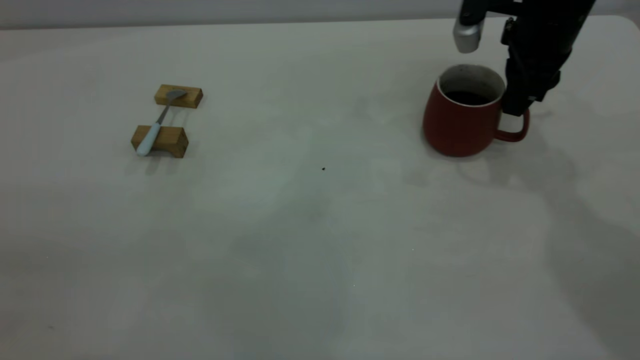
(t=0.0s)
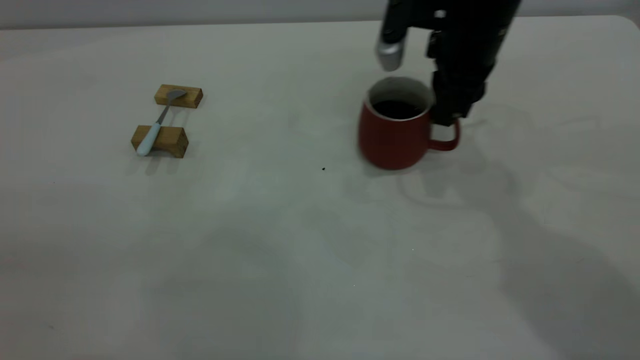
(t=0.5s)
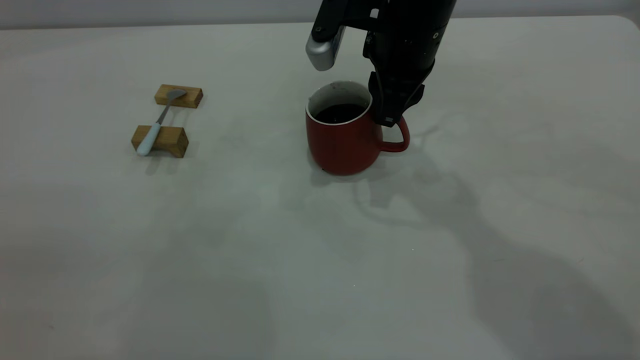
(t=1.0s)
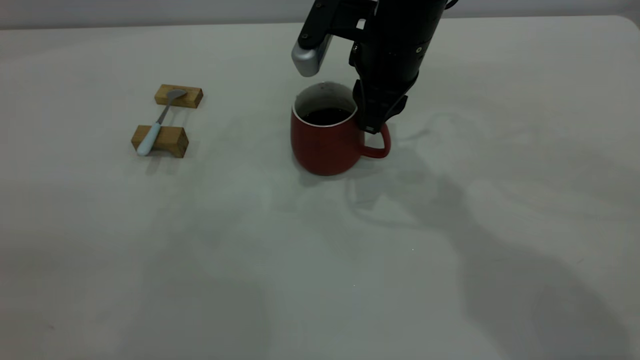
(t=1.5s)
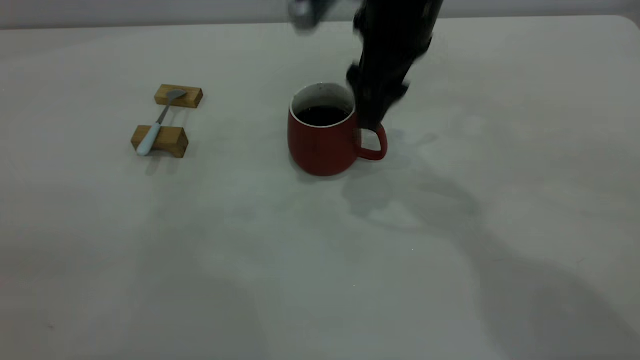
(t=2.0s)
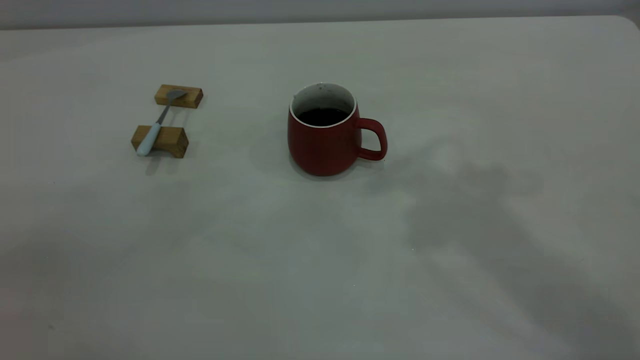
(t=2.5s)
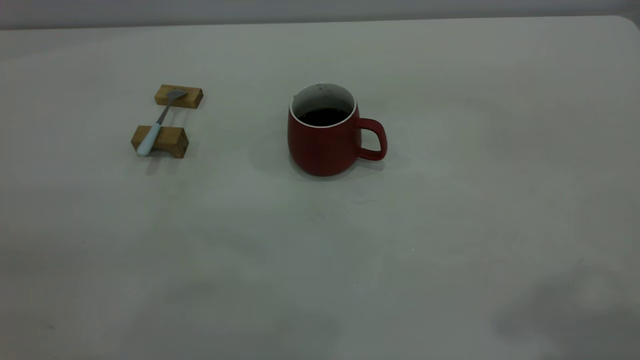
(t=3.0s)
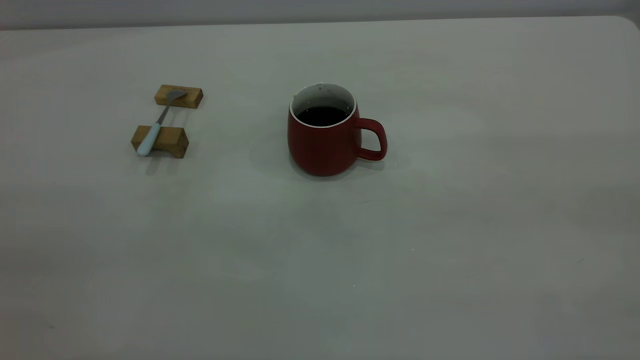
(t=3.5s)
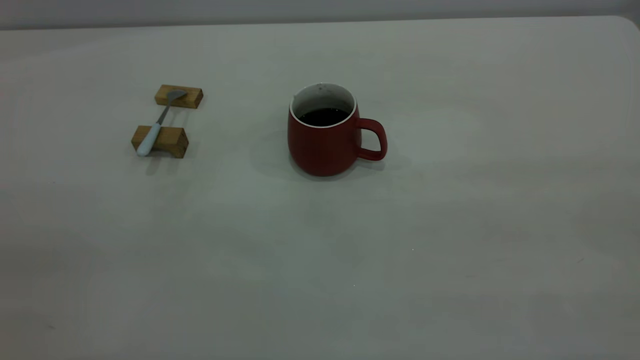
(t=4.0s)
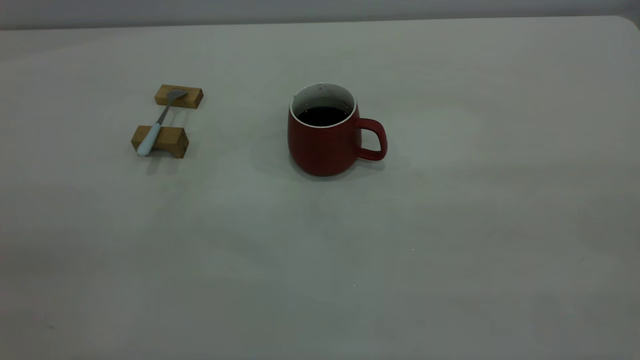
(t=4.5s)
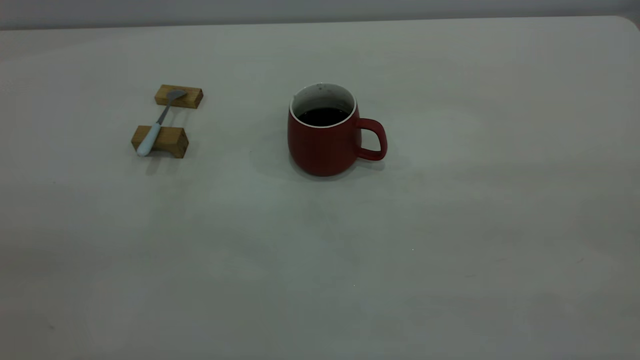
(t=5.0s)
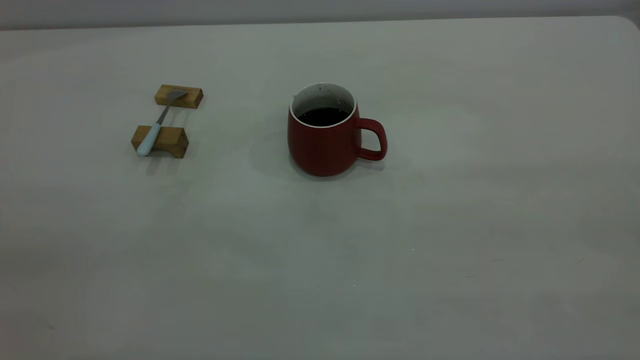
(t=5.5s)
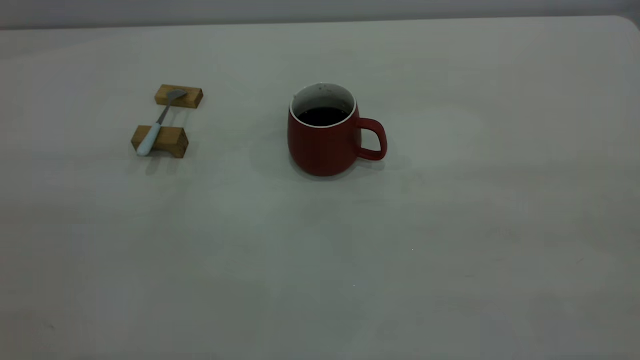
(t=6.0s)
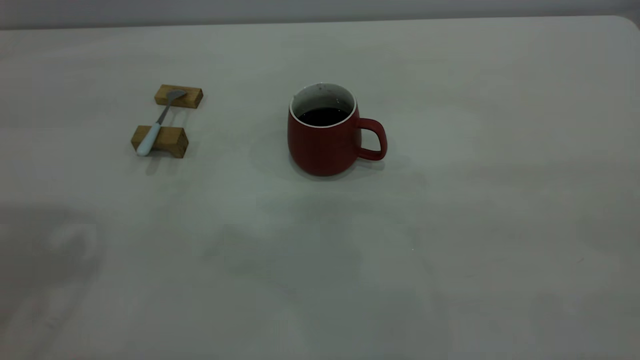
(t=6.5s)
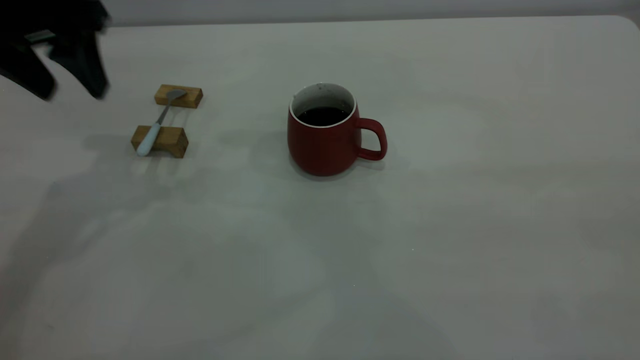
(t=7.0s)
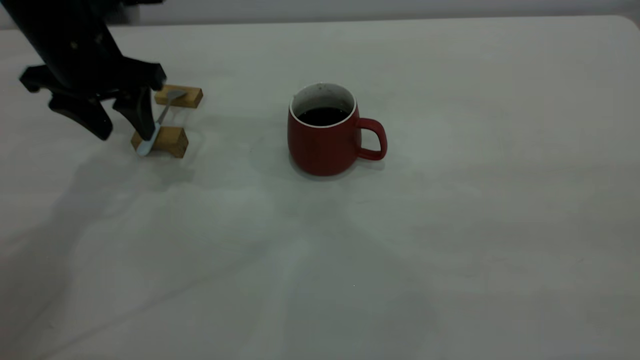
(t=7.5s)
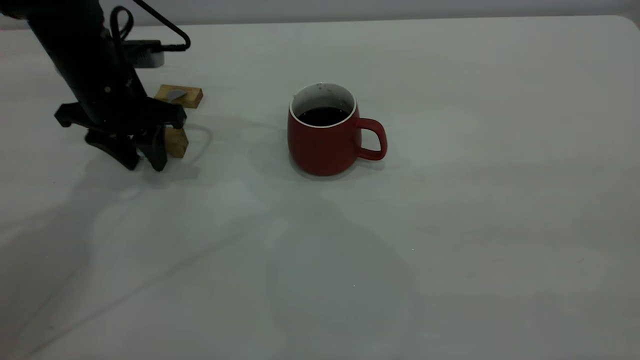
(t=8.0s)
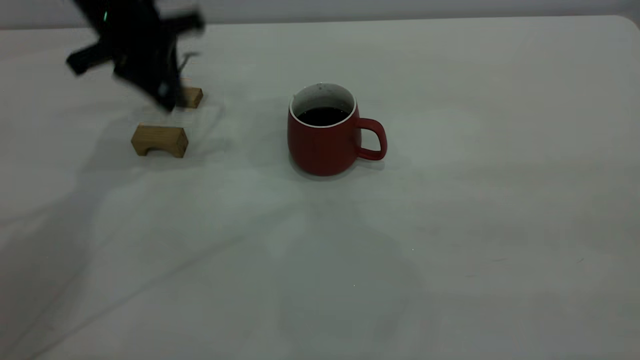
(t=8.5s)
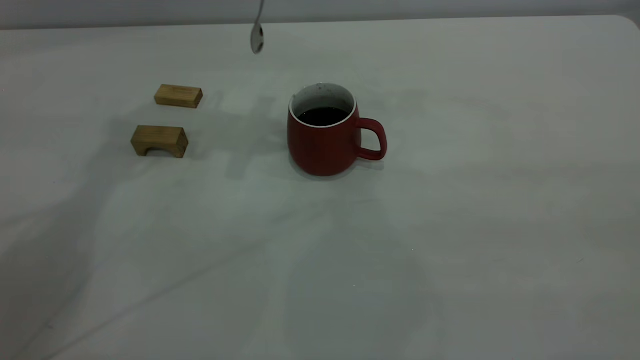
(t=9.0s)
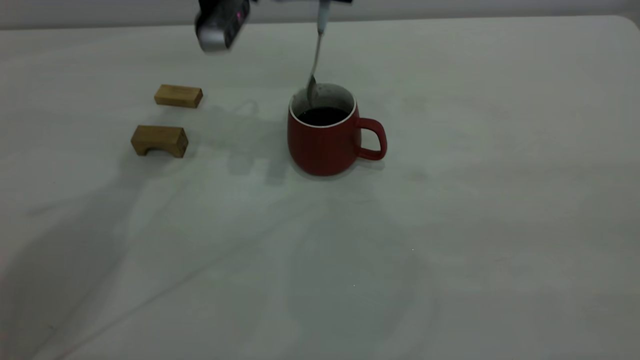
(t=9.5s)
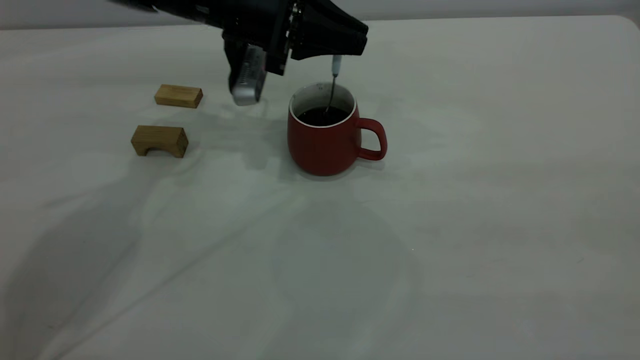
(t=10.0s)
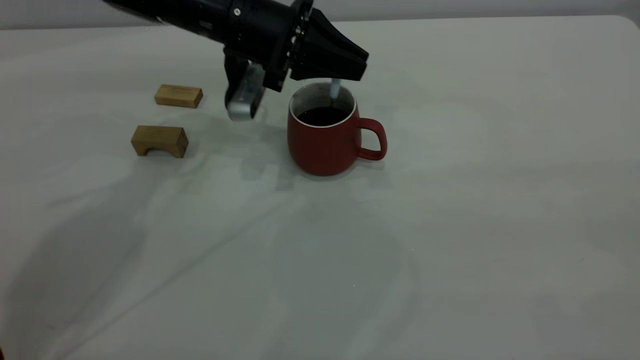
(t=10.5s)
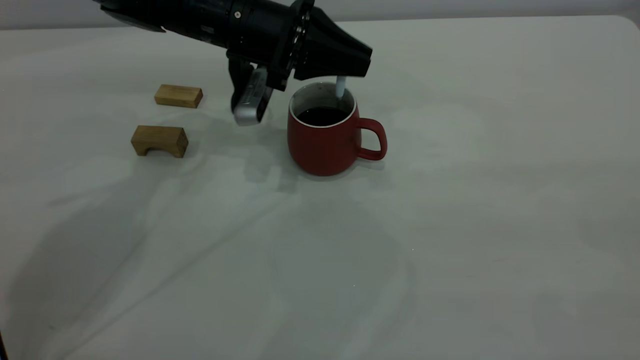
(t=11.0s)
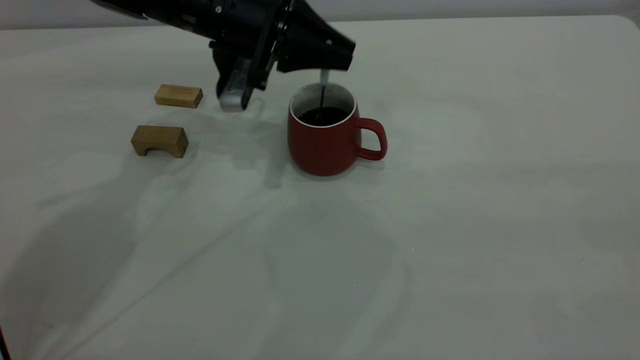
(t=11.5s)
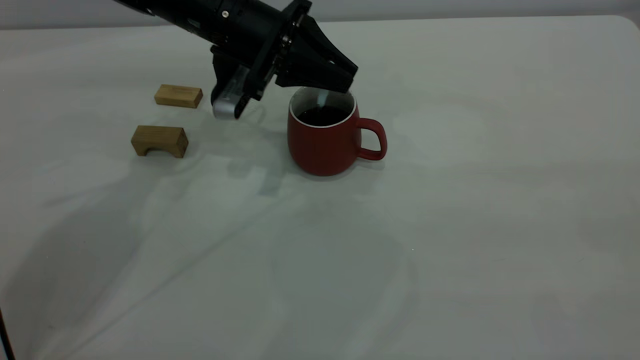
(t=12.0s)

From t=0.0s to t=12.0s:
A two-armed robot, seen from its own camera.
Step, from t=0.0s to t=2.0s: Move the cup with coffee to the center of view.
Step, from t=2.5s to t=8.5s: Pick up the spoon.
From t=0.0s to t=2.0s: The right gripper is displaced to the left and upward by approximately 15 cm, and opens up.
From t=2.0s to t=4.0s: The right gripper heads backward and to the right, covering some 40 cm.
From t=6.0s to t=8.0s: The left gripper heads forward and downward, covering approximately 50 cm, and closes up.
From t=8.0s to t=10.0s: The left gripper is displaced to the right by some 15 cm, and reaches roughly 15 cm upward, then returns.
From t=10.0s to t=12.0s: The grippers stay close to where they were, moving slightly.

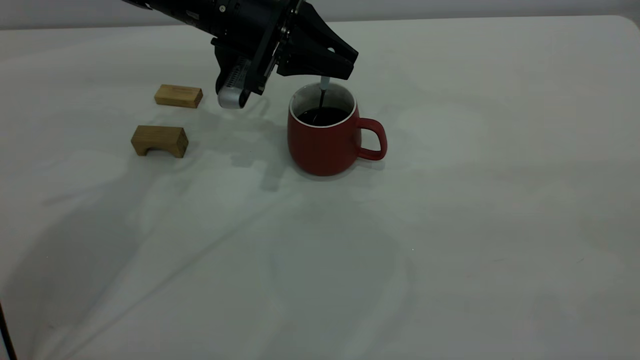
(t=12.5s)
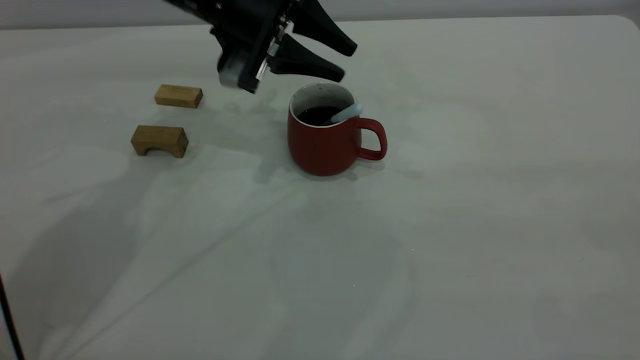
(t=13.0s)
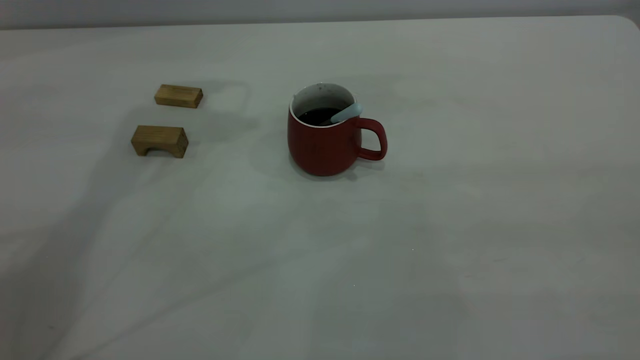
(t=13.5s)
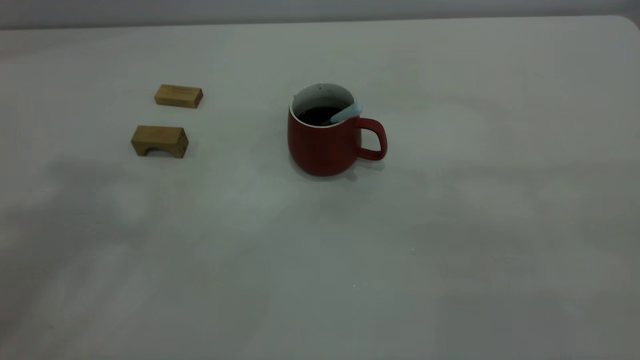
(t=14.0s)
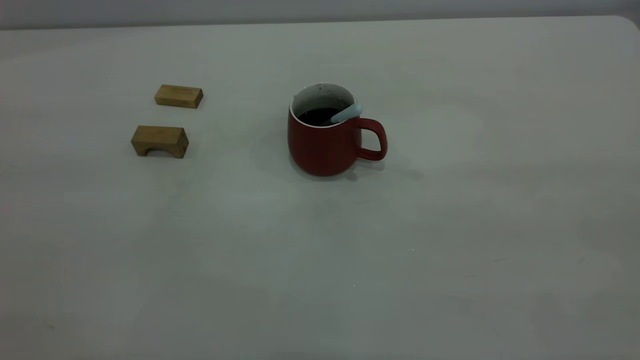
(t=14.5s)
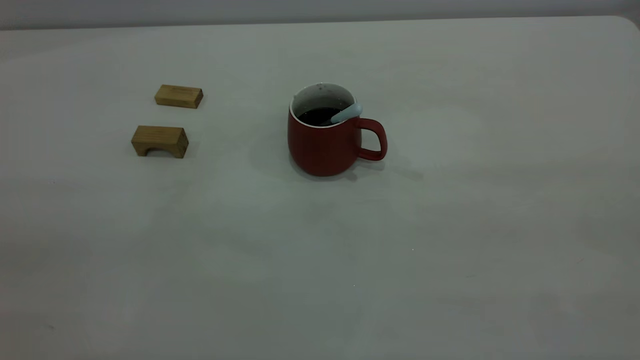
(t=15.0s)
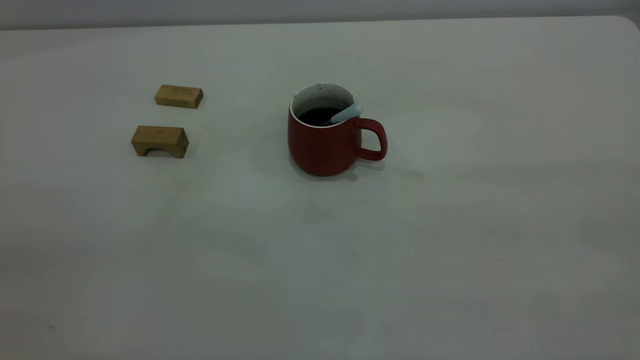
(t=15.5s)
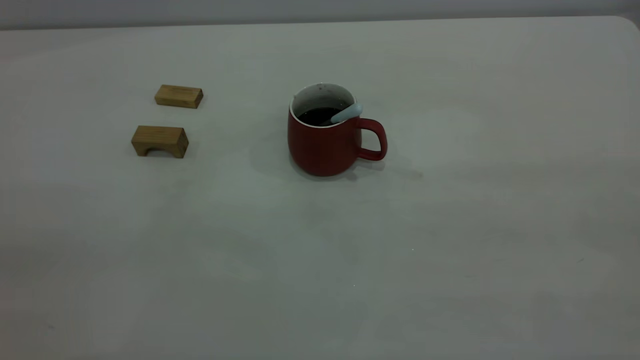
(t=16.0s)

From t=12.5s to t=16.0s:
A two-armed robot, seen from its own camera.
From t=12.5s to t=14.5s: The left gripper is displaced backward, upward and to the left by about 50 cm, and opens.

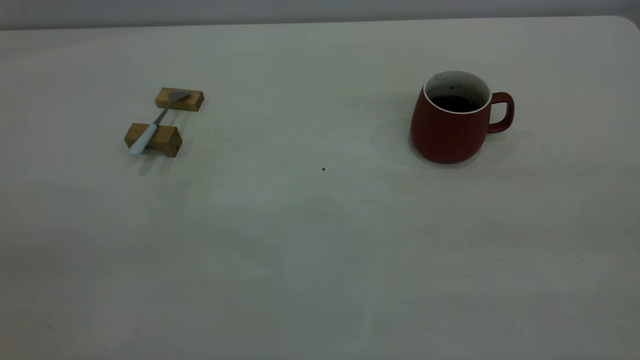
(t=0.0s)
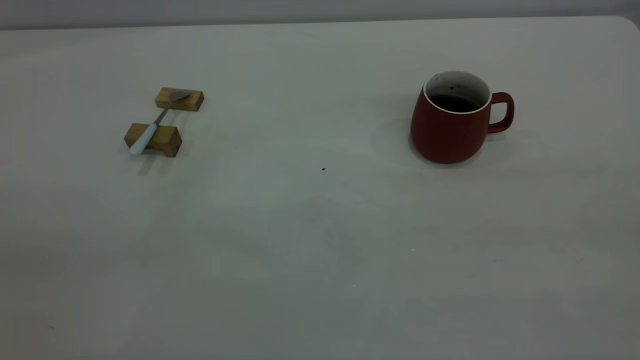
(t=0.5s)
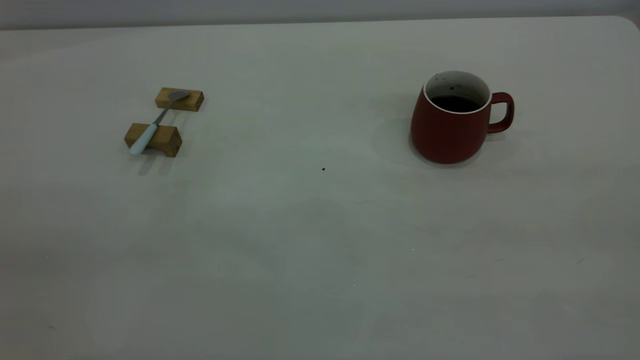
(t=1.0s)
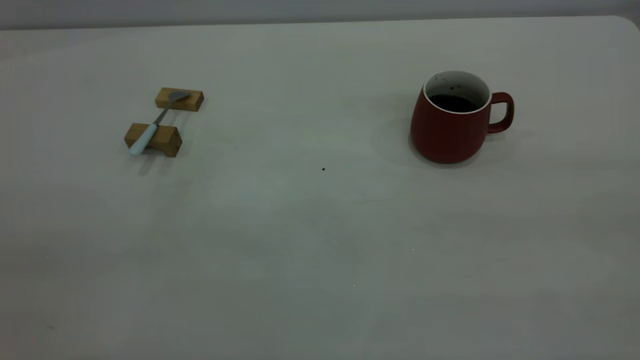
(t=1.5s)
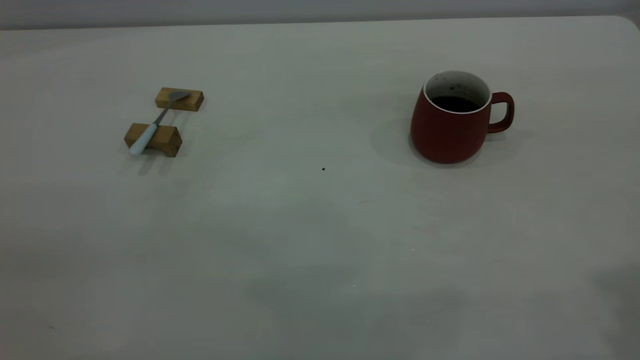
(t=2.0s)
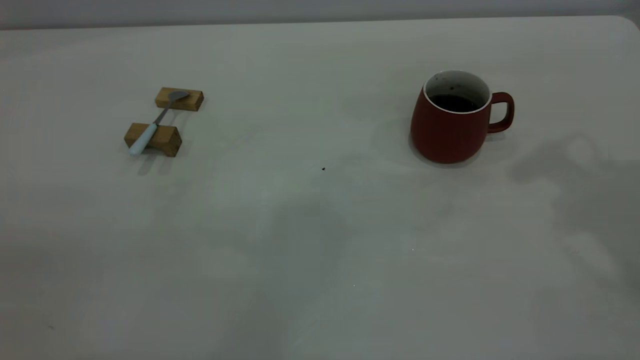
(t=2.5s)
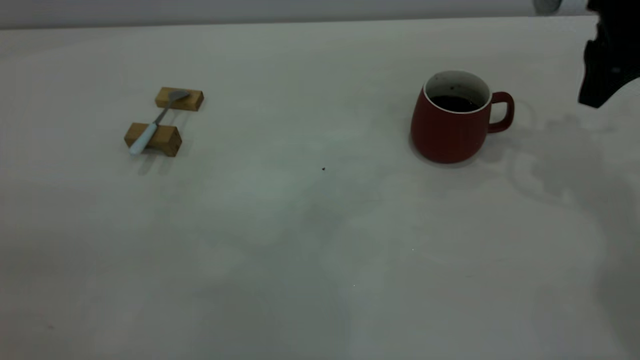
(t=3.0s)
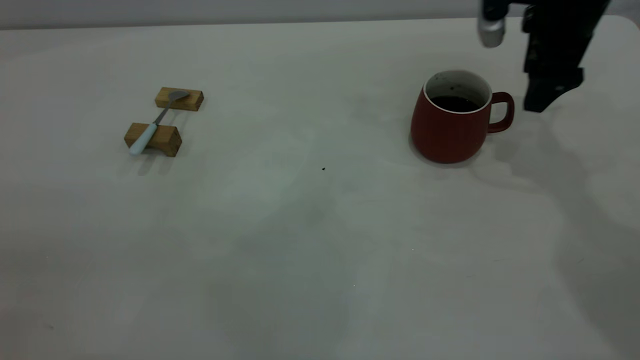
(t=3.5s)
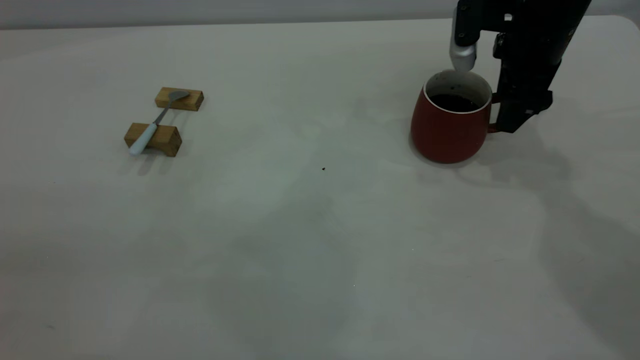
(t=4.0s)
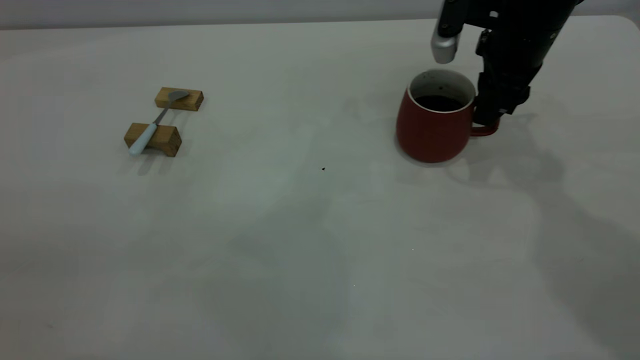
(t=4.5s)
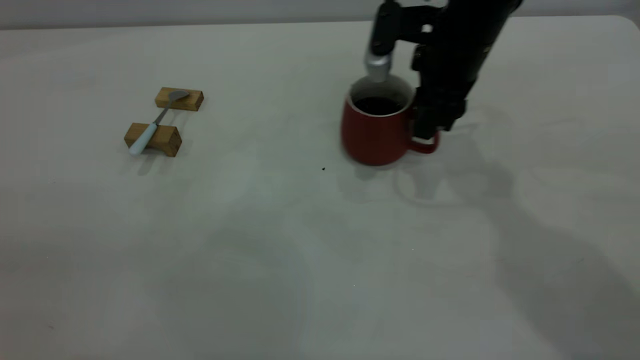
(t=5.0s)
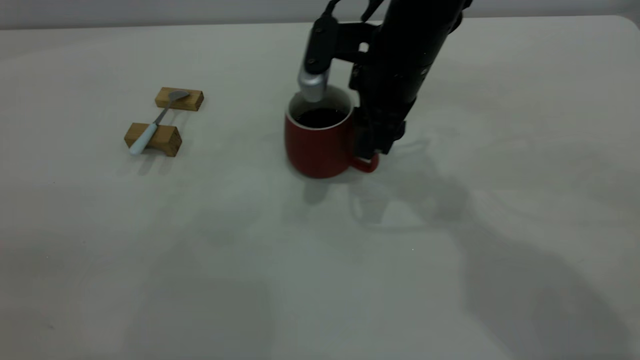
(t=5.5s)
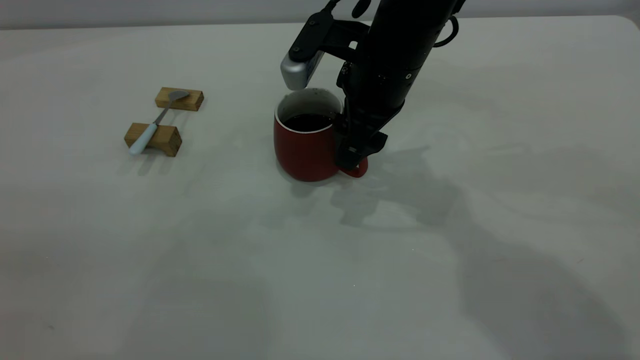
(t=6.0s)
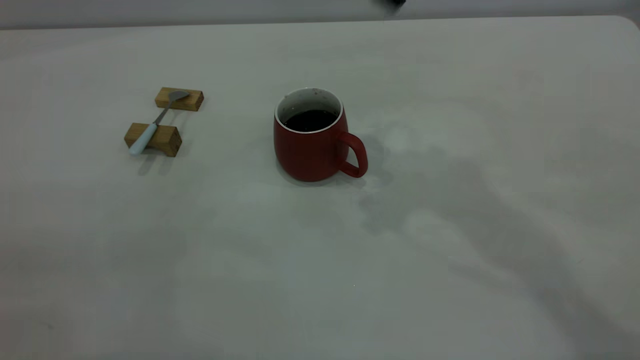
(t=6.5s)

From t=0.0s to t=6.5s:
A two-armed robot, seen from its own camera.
Step, from t=0.0s to t=6.0s: Move the cup with coffee to the center of view.
From t=2.0s to t=4.5s: The right gripper heads forward and downward, covering some 35 cm, and closes.
From t=4.5s to t=6.5s: The right gripper heads upward and backward, covering approximately 25 cm, and opens.
